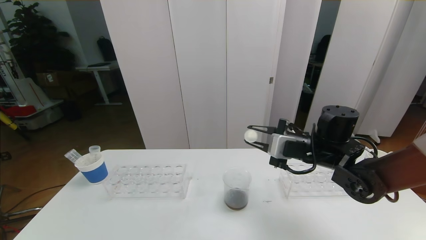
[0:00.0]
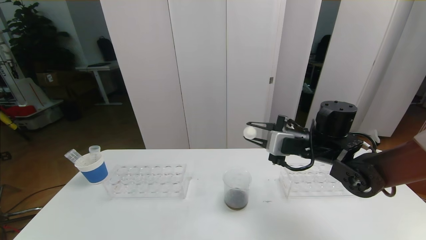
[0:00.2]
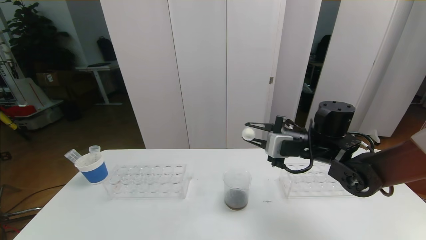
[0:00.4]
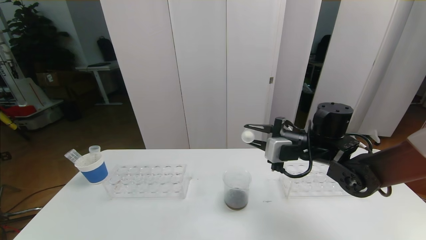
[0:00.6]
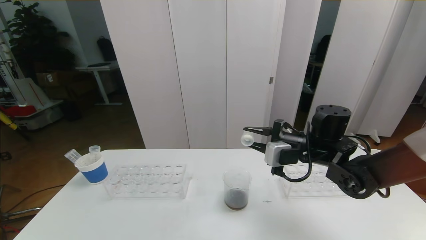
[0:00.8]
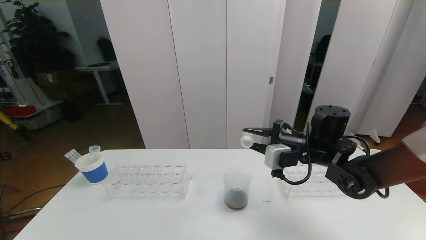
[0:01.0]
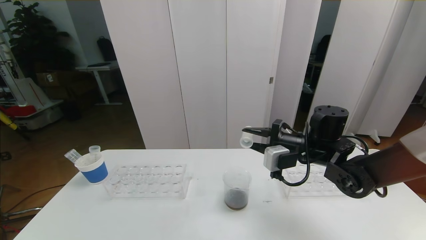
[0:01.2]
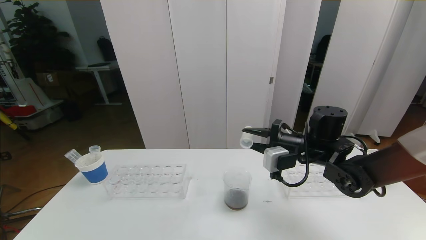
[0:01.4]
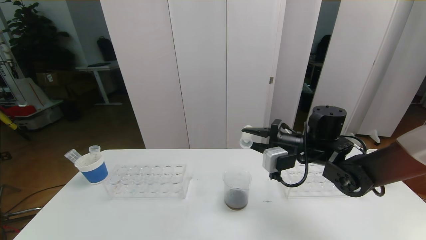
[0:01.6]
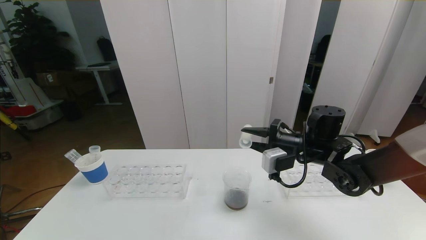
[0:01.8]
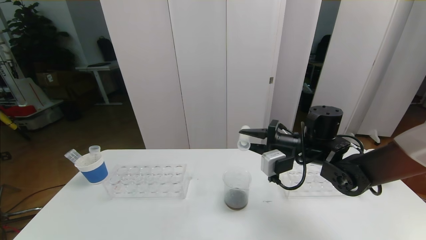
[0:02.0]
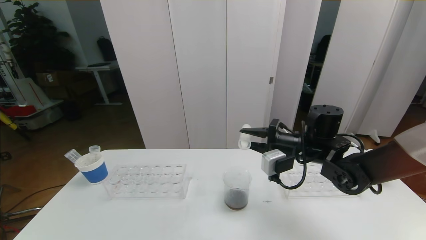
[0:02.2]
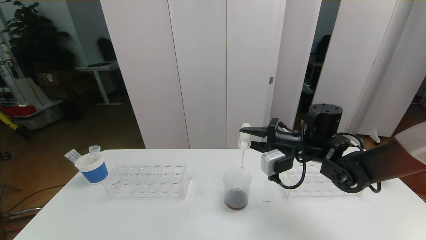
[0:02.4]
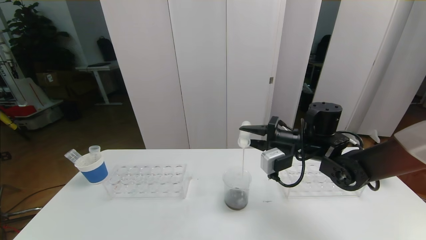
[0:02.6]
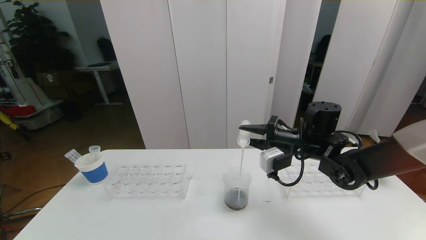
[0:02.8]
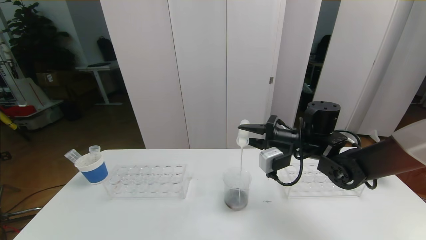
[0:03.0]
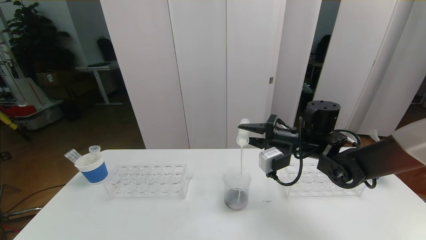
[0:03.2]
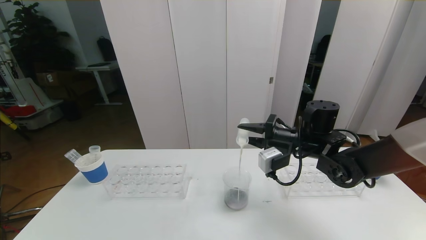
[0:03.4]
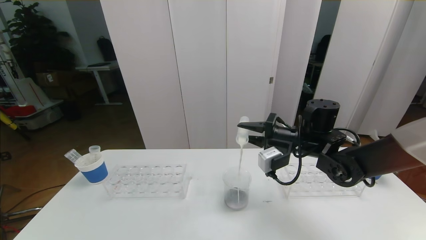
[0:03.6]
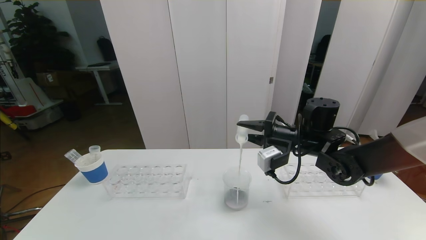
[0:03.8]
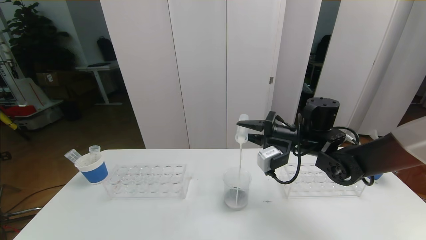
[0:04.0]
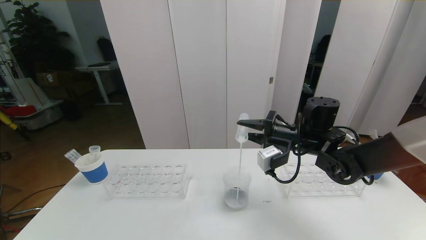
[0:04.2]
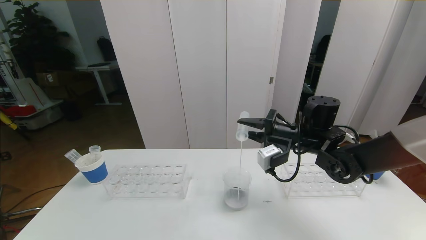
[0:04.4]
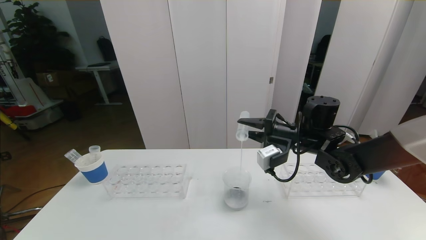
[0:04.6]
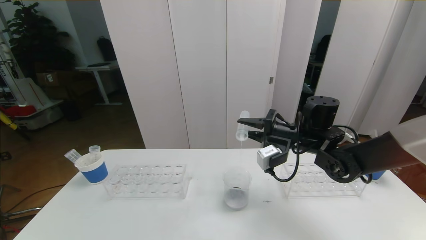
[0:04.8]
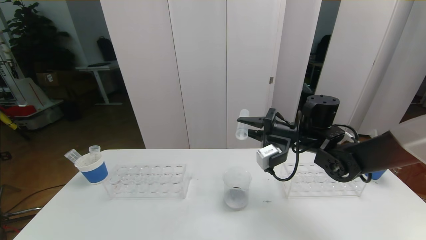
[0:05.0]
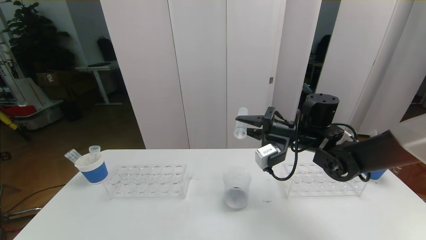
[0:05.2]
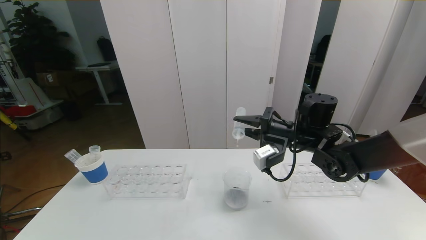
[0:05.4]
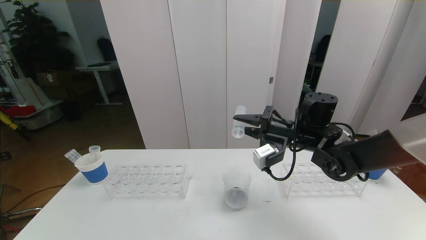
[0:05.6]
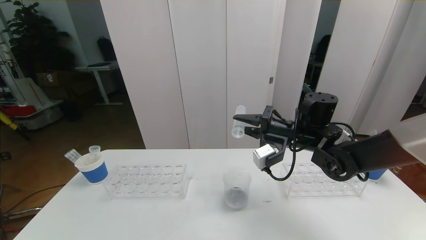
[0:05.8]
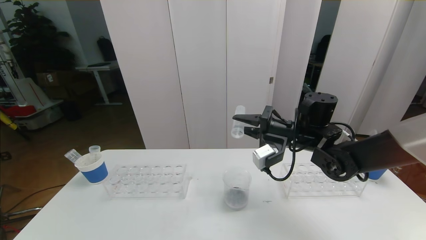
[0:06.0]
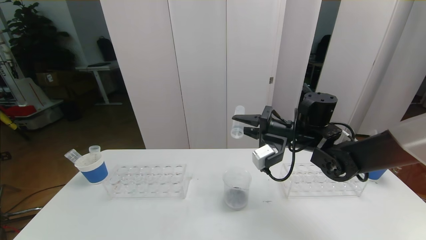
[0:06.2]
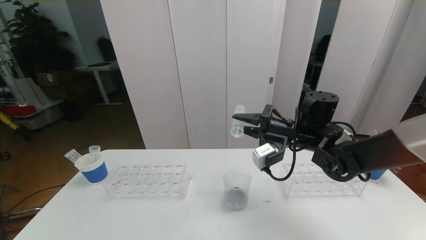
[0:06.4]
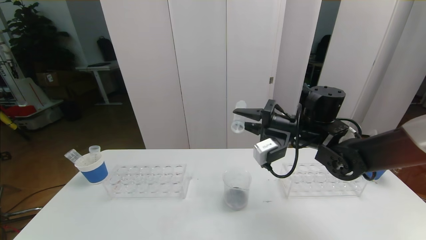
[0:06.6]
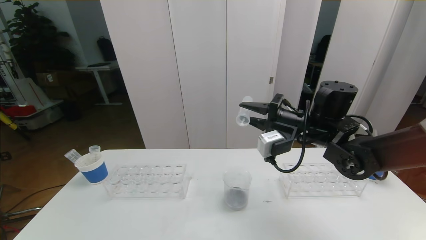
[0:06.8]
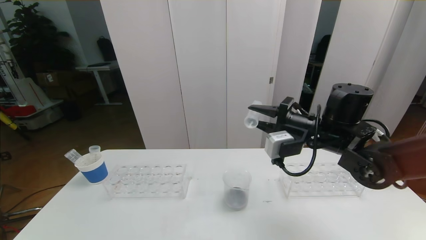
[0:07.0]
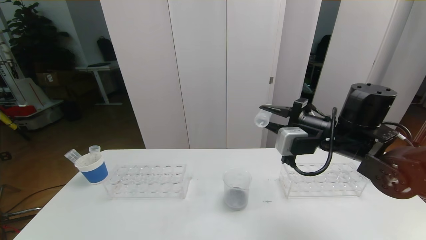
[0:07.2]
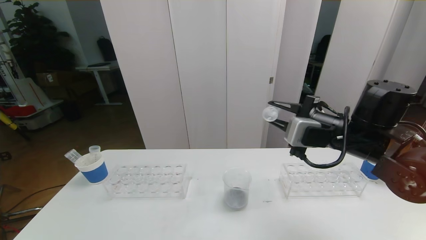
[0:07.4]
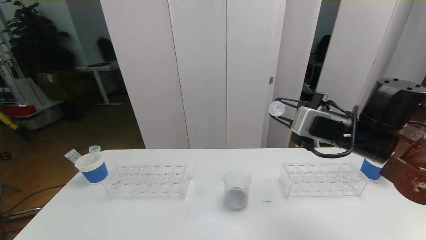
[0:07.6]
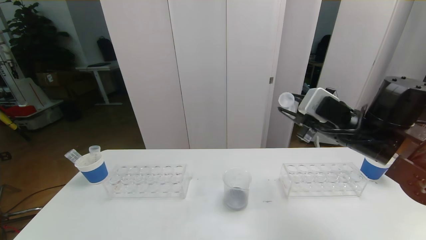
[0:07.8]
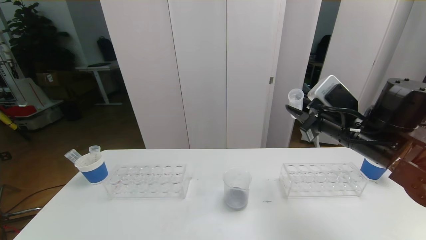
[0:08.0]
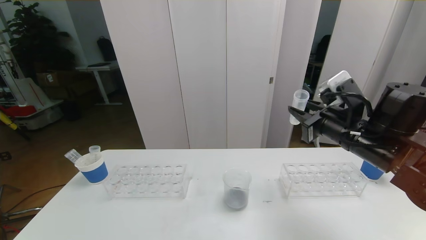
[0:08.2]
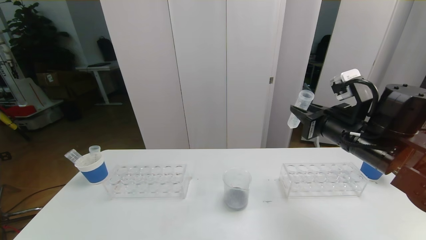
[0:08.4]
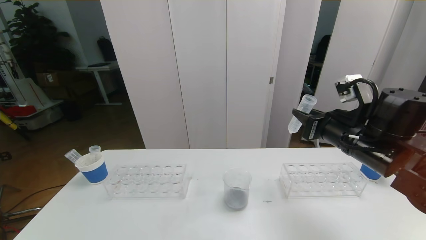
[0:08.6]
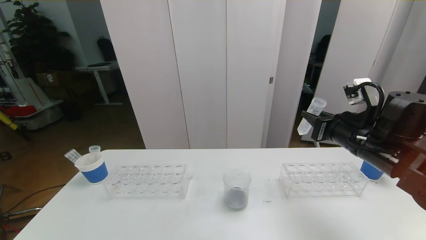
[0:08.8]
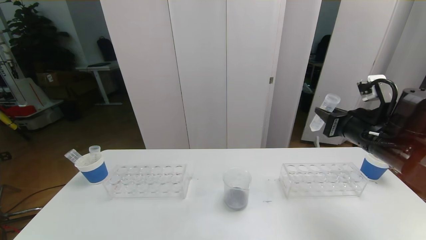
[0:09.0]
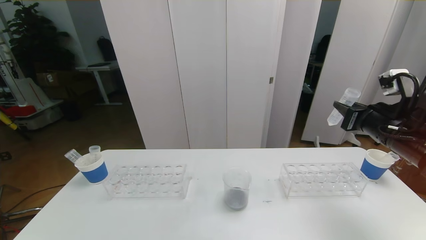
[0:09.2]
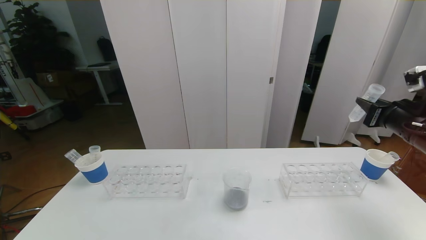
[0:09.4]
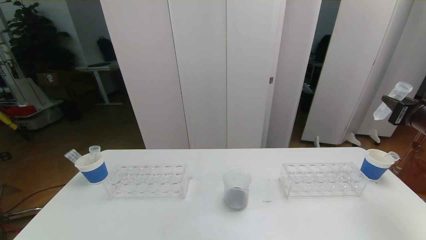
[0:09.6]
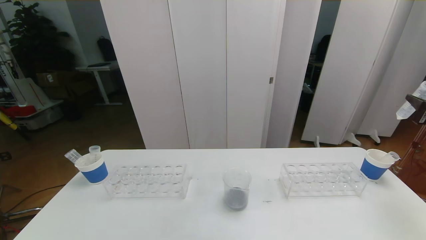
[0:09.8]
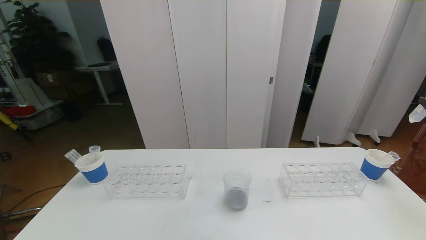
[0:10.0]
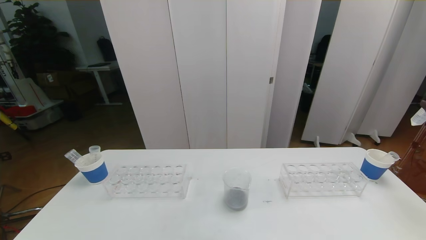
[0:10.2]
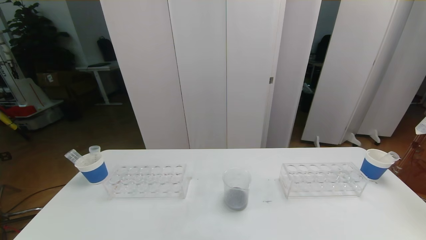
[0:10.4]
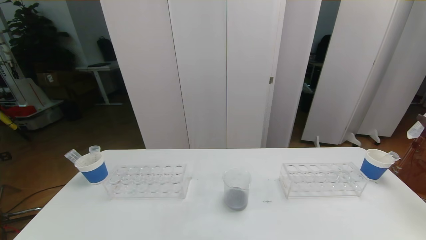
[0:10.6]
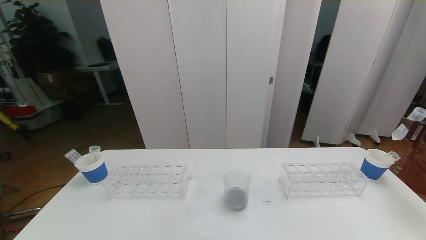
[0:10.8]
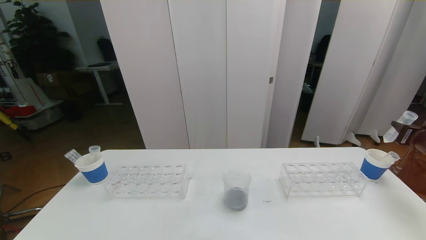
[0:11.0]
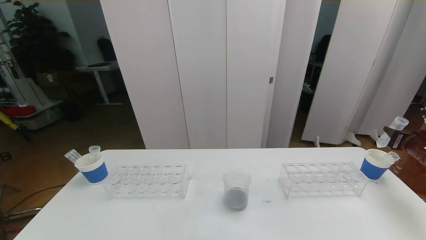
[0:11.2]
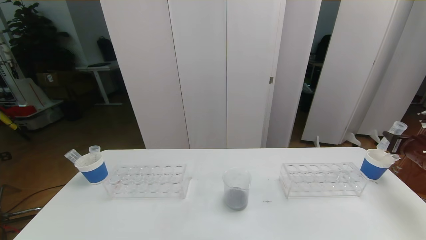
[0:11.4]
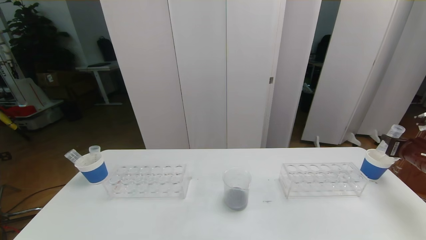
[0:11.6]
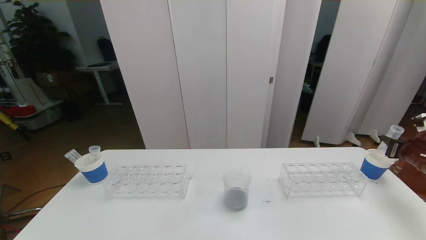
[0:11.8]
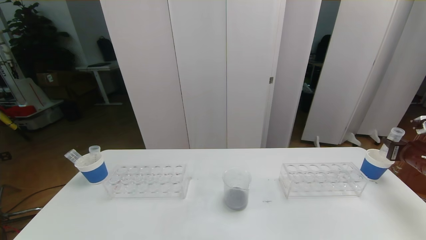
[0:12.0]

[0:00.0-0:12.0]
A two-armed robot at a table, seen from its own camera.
Task of the whole recording: pick up the test tube with red pigment the test tube with blue pigment and the test tube with white pigment by grippers and pour them into the beaker.
0:00.0 to 0:01.6: The grippers move only a little.
0:01.6 to 0:04.4: The grippers make only small movements.
0:04.4 to 0:06.0: The grippers make only small movements.
0:06.0 to 0:07.6: The right gripper shifts about 10 cm backward and to the right.
0:07.6 to 0:09.0: The right gripper is displaced to the right by approximately 5 cm.
0:09.0 to 0:10.4: The right gripper heads to the right, covering about 20 cm.
0:10.4 to 0:12.0: The right gripper goes approximately 10 cm downward.

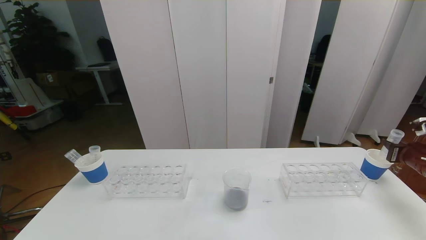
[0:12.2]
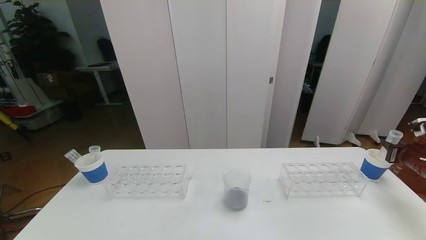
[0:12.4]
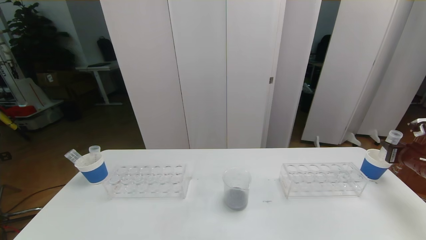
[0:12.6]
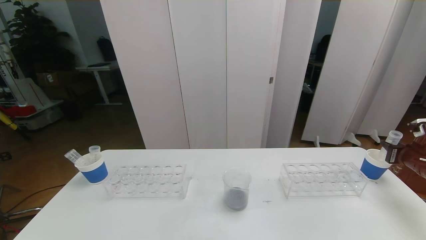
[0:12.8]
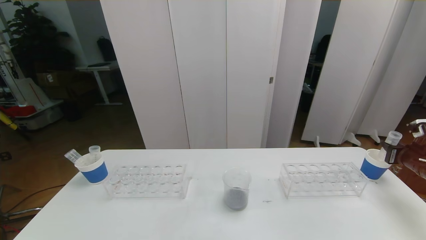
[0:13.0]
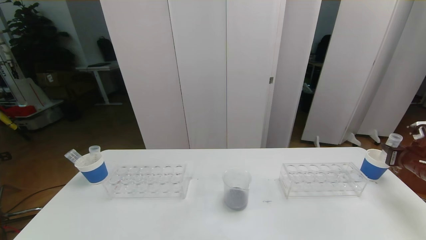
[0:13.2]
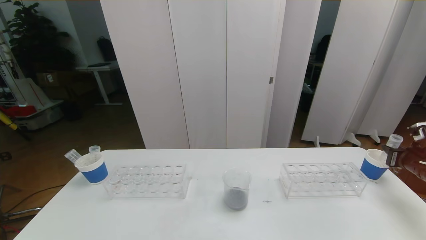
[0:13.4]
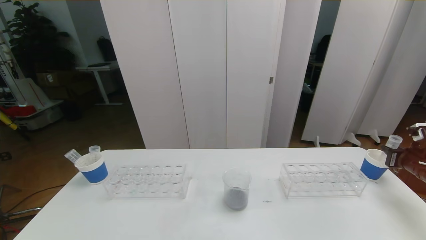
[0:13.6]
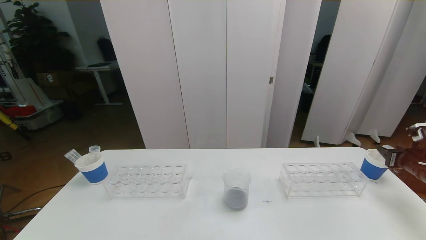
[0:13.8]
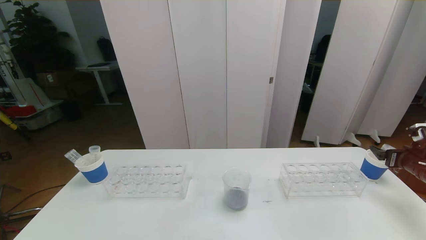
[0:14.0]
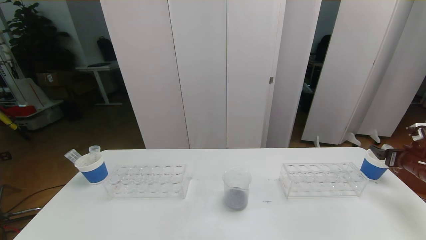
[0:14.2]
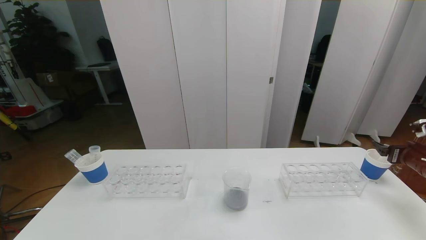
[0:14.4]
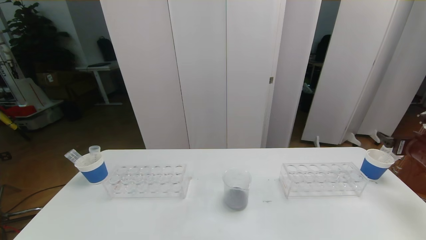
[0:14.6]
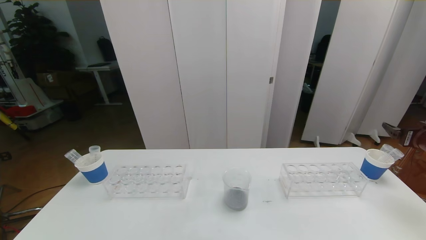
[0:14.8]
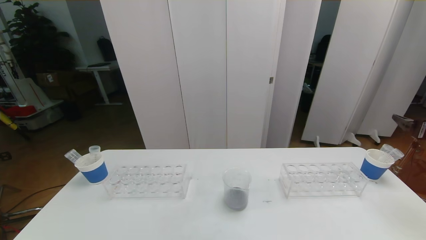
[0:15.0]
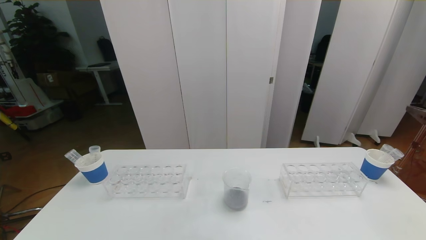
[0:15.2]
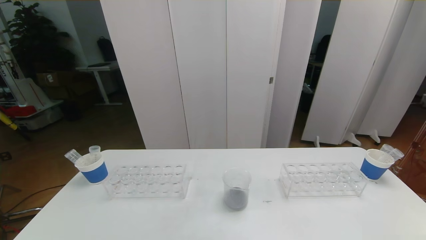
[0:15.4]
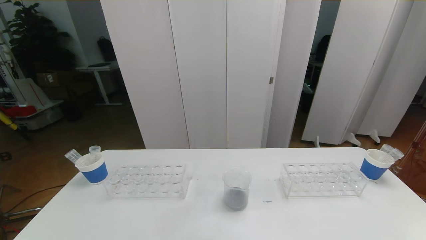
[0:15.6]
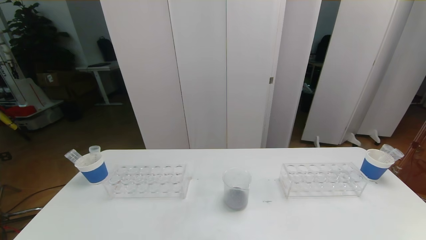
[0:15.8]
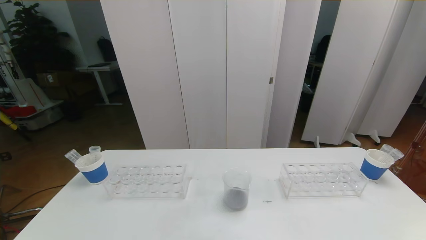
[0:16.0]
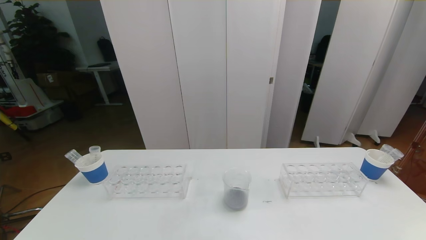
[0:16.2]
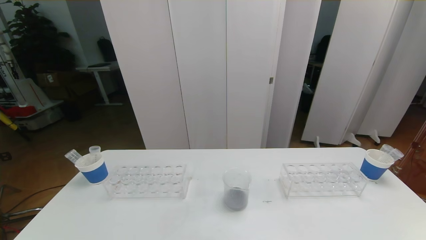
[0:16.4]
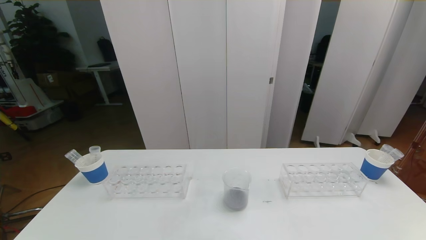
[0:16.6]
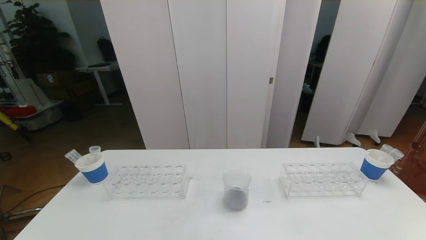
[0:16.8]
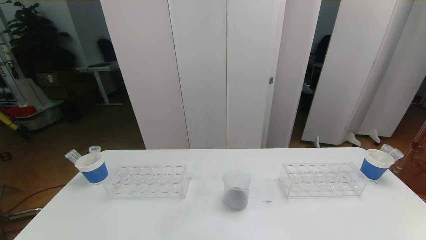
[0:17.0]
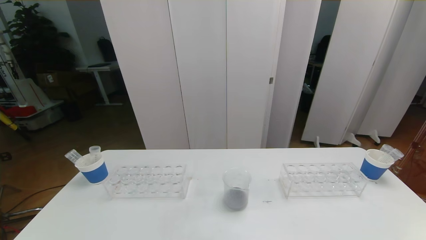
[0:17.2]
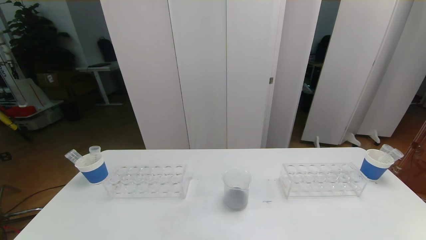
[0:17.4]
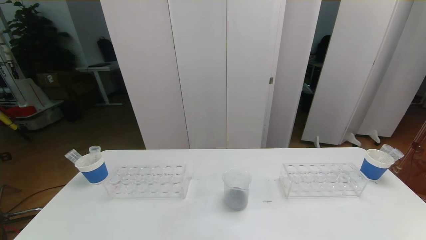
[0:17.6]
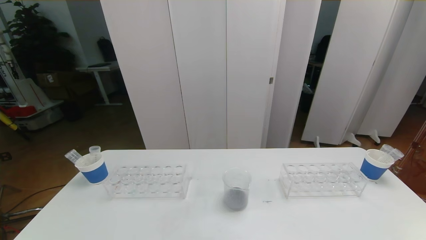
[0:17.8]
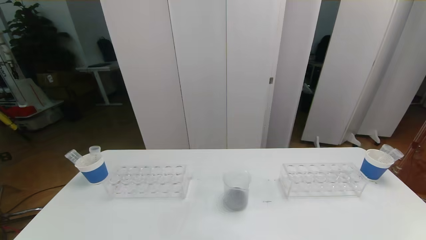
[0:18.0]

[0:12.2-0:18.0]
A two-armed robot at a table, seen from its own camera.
Task of the whole recording: pick up the test tube with red pigment the test tube with blue pigment and the test tube with white pigment by grippers and pour them into the beaker.
0:13.6 to 0:15.0: The right gripper goes approximately 10 cm upward, and opens its fingers.
